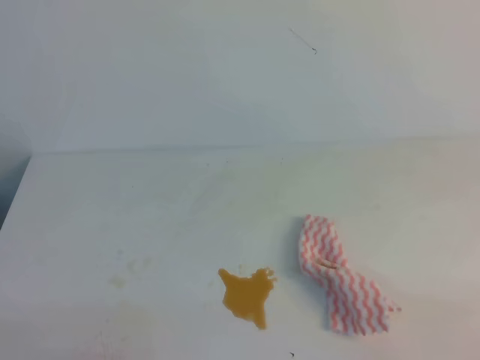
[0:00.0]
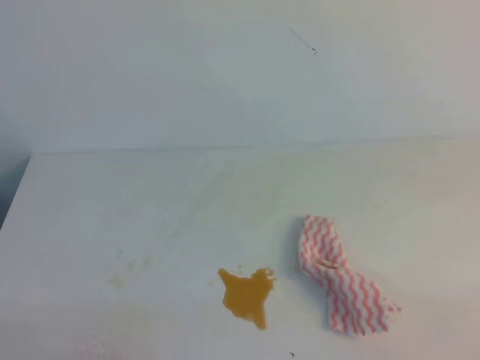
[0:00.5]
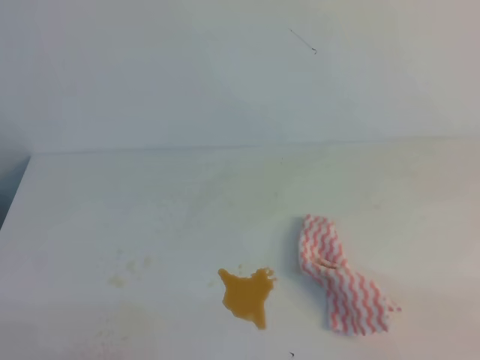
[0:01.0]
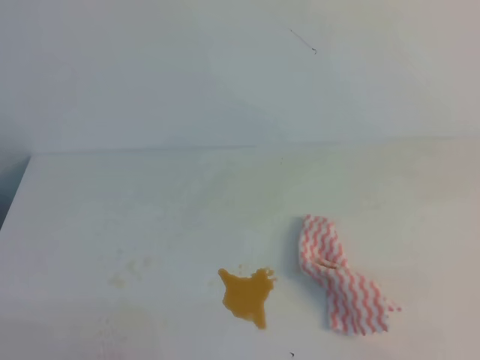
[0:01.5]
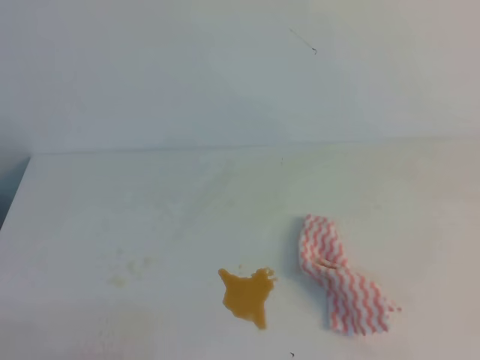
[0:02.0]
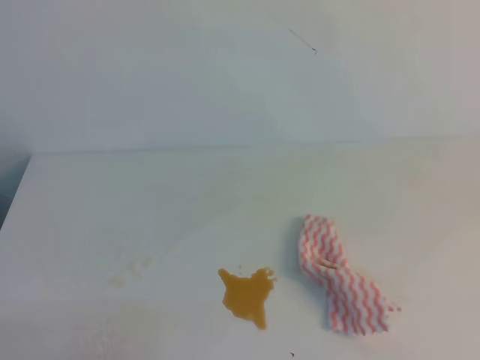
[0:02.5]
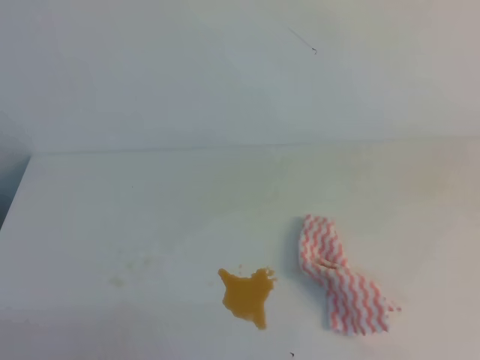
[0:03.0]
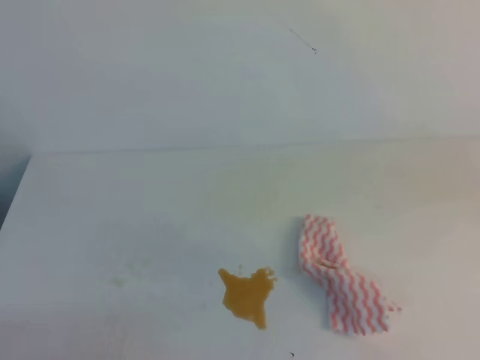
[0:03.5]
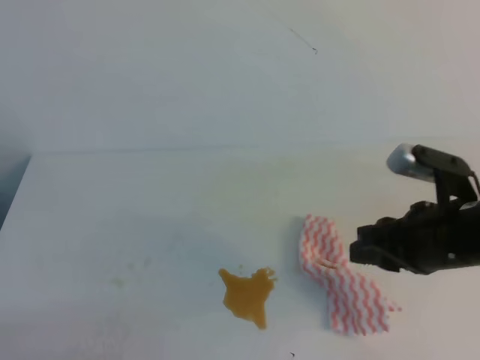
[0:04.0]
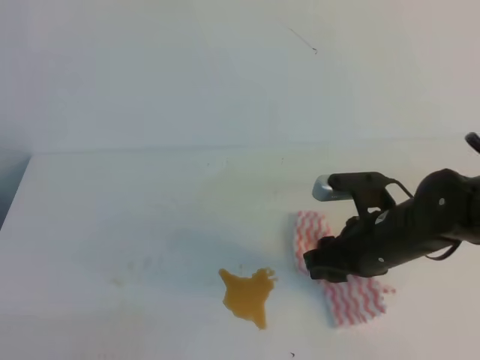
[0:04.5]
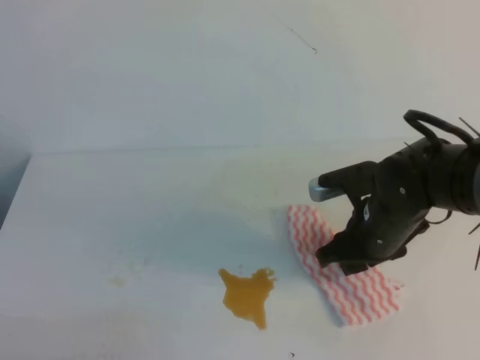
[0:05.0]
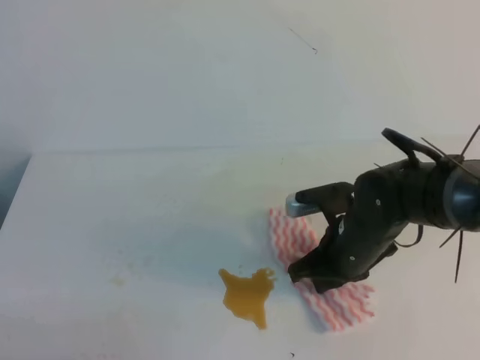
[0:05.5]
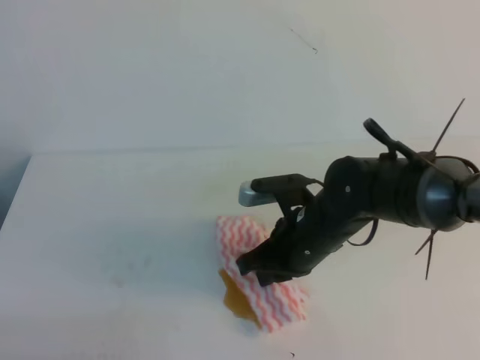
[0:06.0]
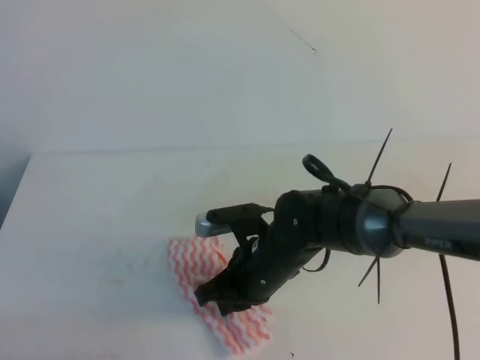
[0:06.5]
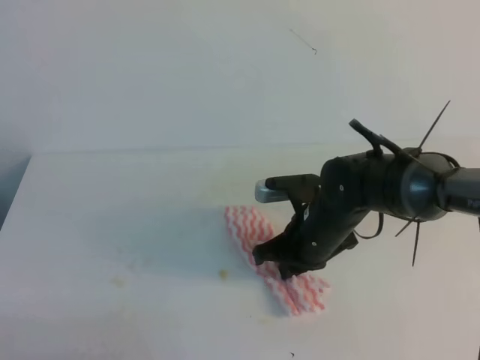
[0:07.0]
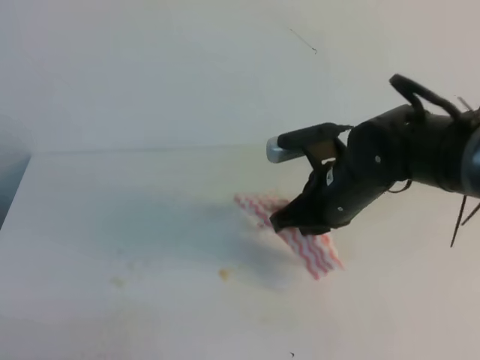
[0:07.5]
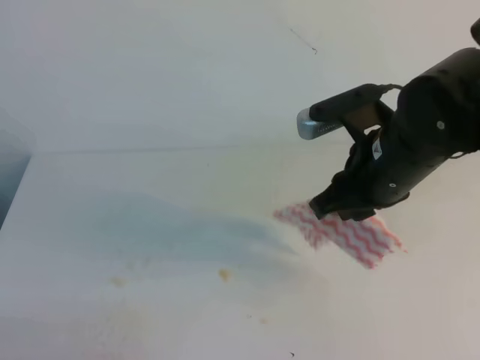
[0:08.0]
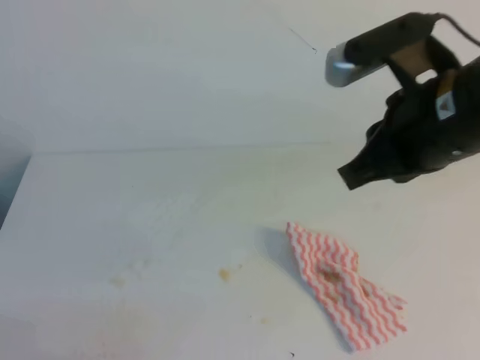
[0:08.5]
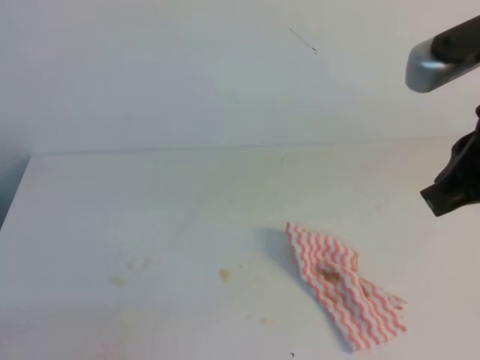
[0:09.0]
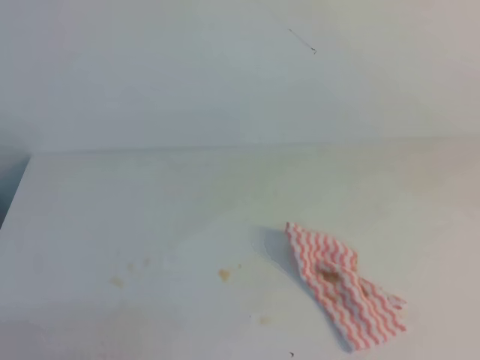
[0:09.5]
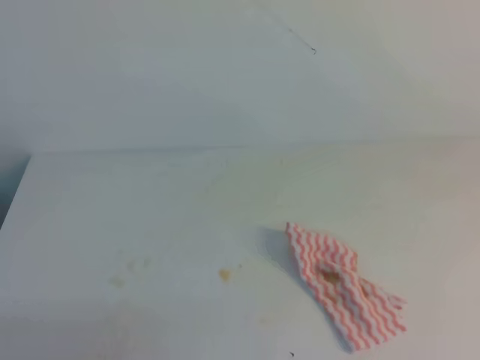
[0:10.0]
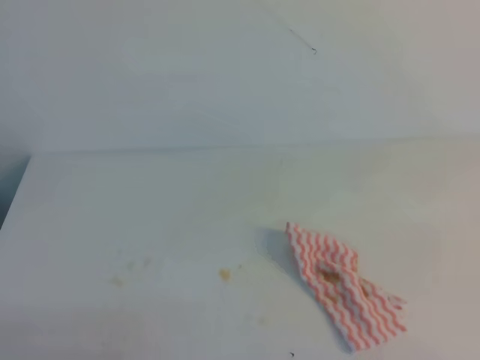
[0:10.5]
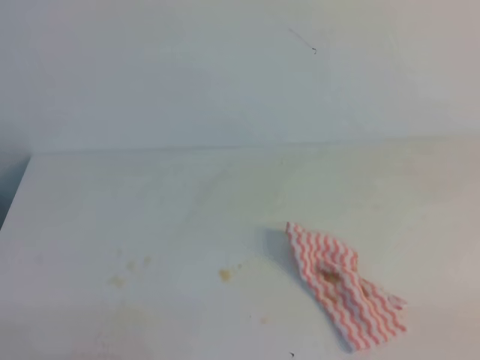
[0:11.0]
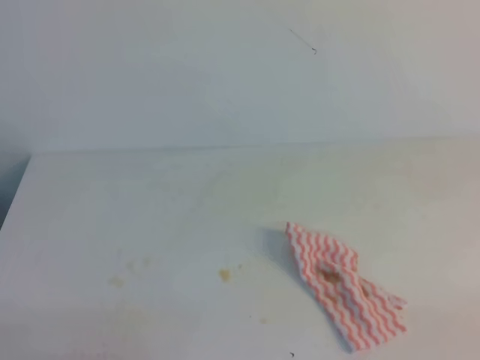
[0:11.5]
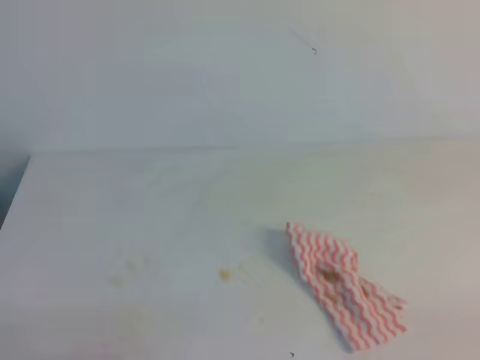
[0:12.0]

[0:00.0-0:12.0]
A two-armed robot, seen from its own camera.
0:02.0 to 0:04.0: The right gripper goes roughly 30 cm forward and to the left, and opens its fingers.
0:04.0 to 0:06.0: The right gripper shifts about 15 cm to the left and downward, and closes.
0:06.0 to 0:08.0: The right gripper goes roughly 15 cm upward and to the right, and opens its fingers.
0:08.0 to 0:10.0: The right gripper shifts about 35 cm to the right, backward and upward, and closes up.
